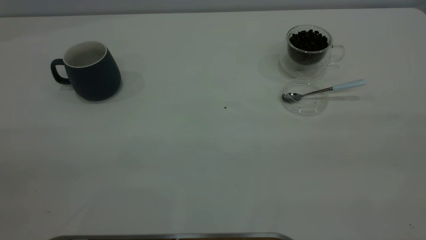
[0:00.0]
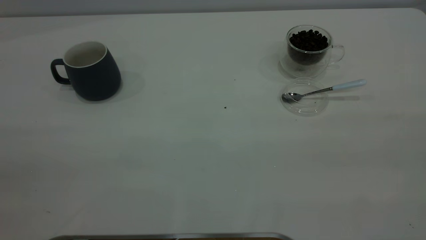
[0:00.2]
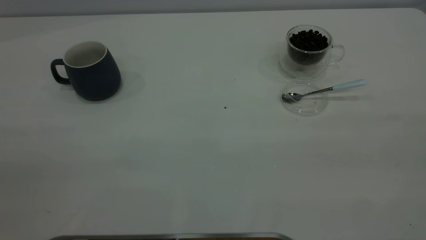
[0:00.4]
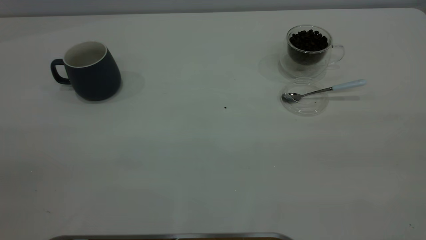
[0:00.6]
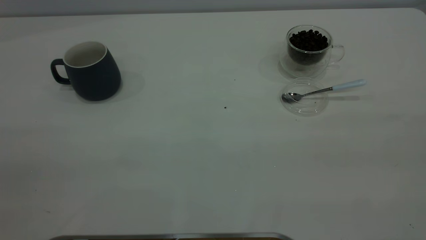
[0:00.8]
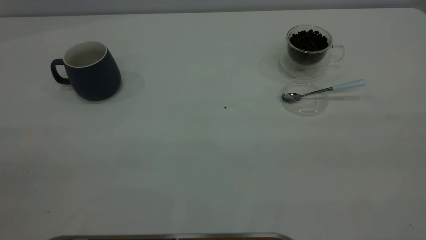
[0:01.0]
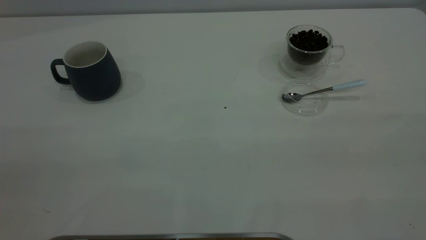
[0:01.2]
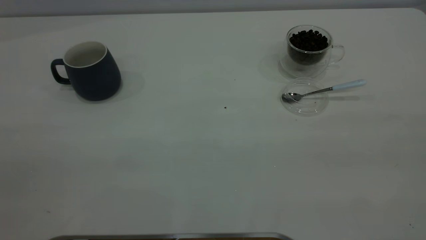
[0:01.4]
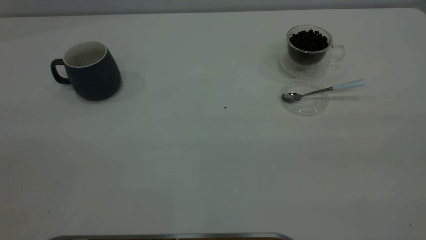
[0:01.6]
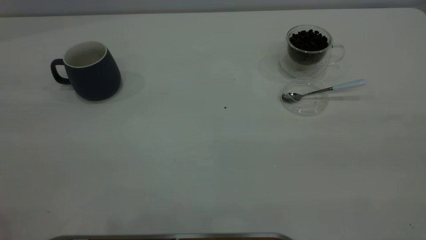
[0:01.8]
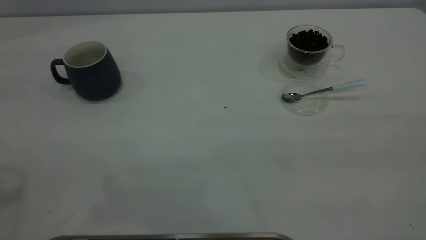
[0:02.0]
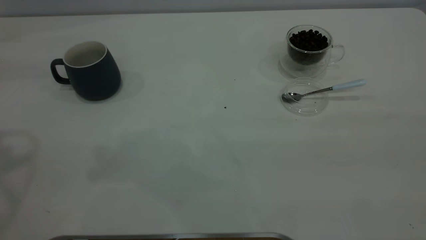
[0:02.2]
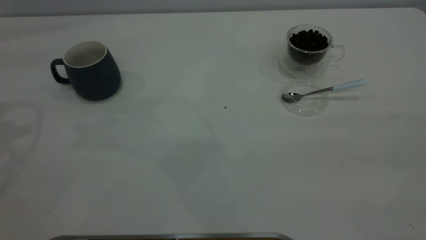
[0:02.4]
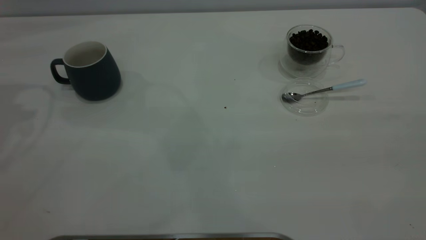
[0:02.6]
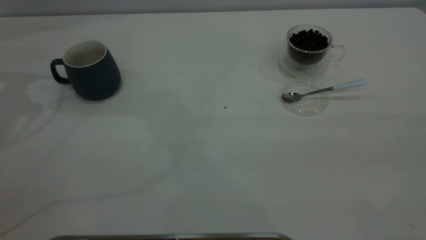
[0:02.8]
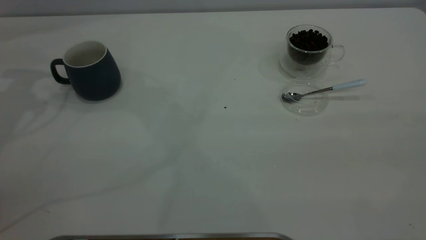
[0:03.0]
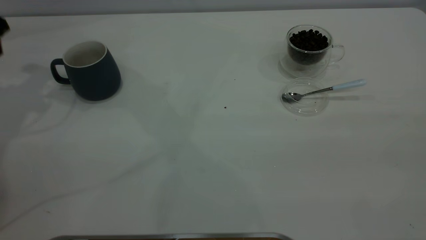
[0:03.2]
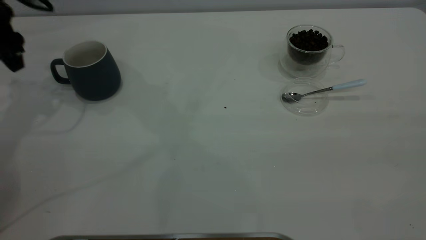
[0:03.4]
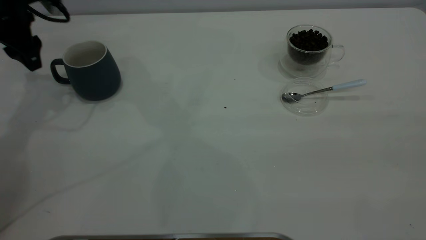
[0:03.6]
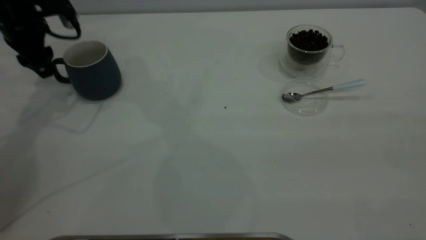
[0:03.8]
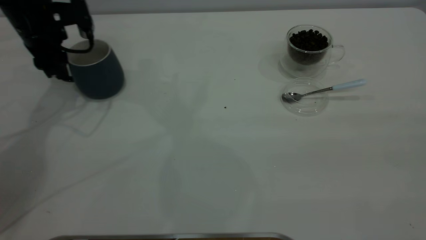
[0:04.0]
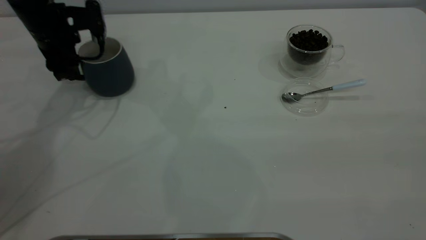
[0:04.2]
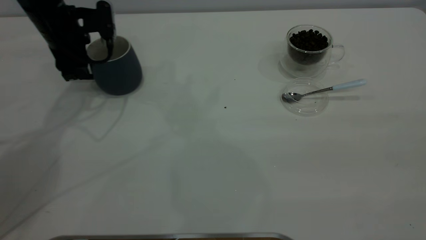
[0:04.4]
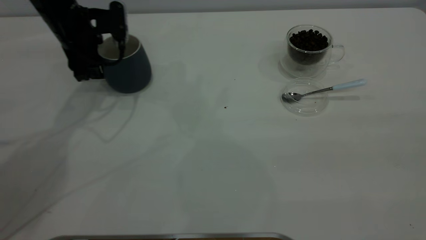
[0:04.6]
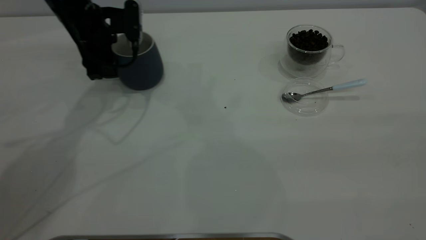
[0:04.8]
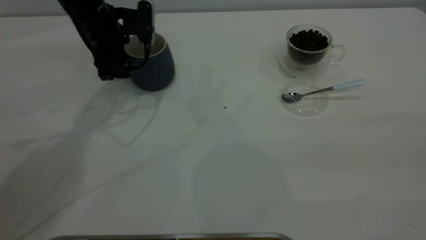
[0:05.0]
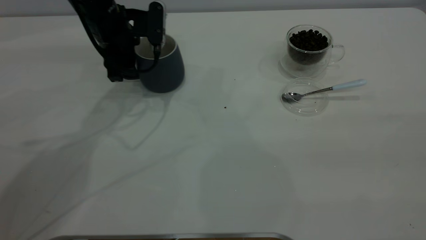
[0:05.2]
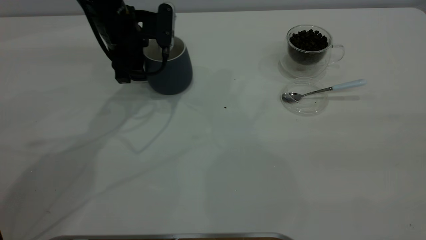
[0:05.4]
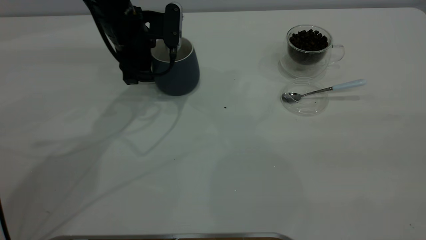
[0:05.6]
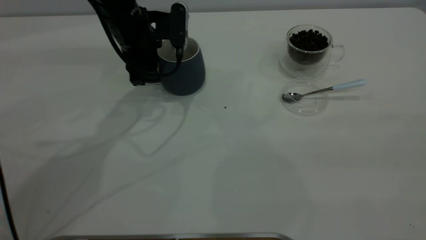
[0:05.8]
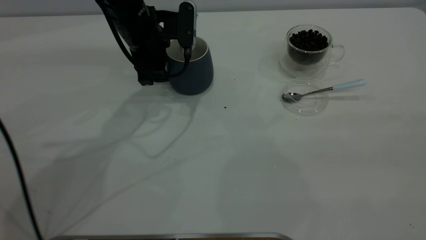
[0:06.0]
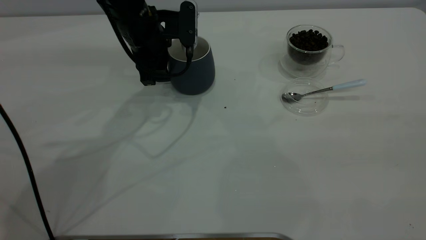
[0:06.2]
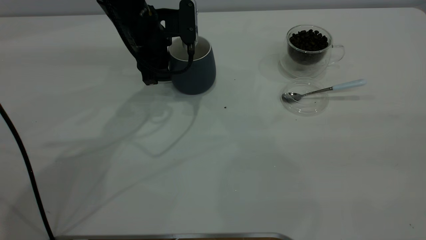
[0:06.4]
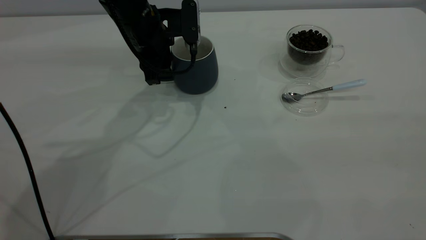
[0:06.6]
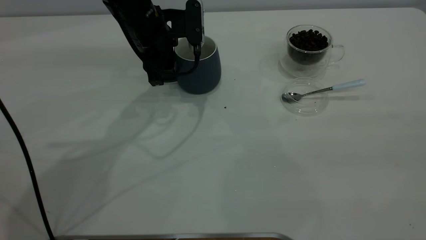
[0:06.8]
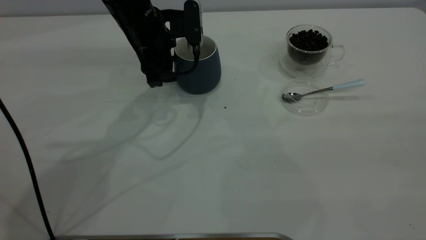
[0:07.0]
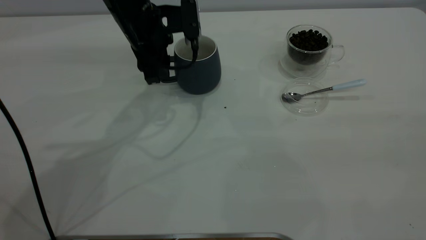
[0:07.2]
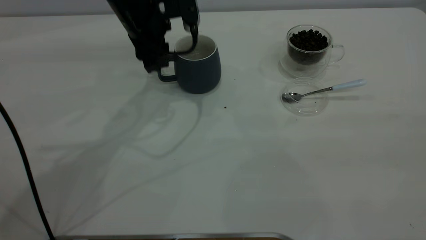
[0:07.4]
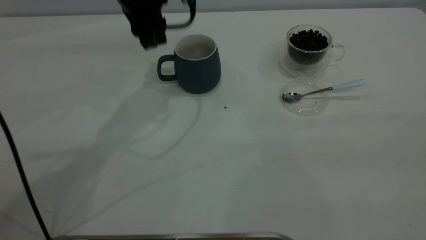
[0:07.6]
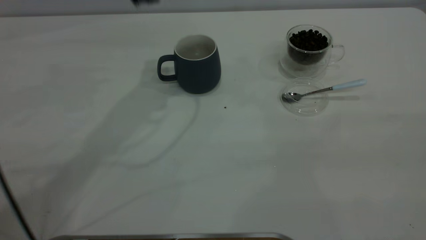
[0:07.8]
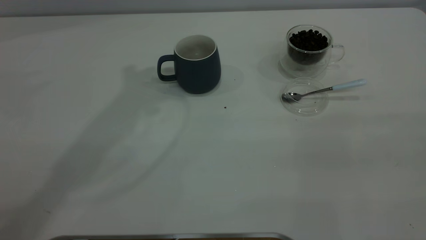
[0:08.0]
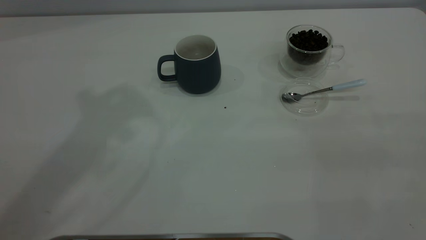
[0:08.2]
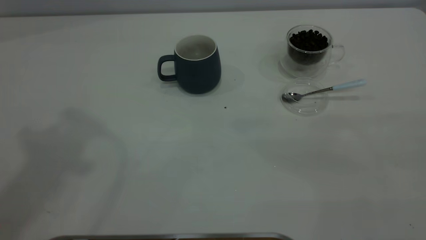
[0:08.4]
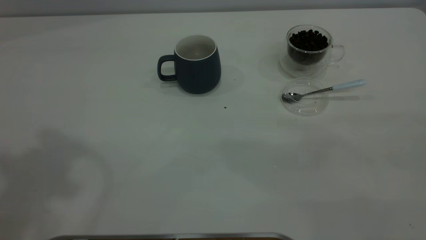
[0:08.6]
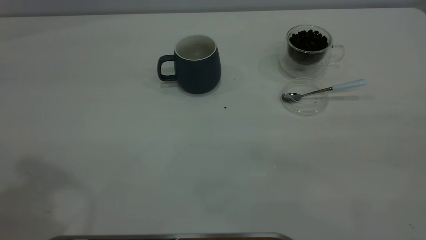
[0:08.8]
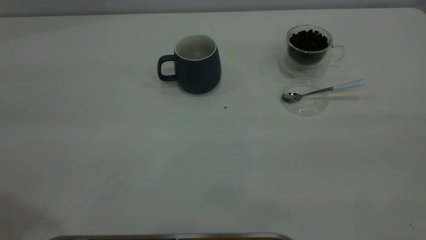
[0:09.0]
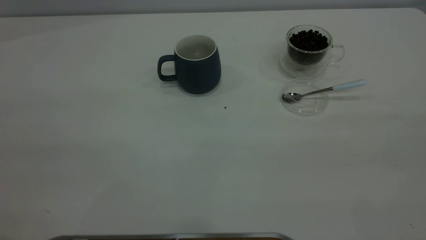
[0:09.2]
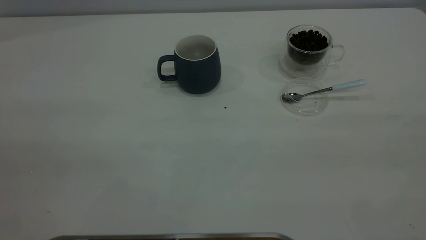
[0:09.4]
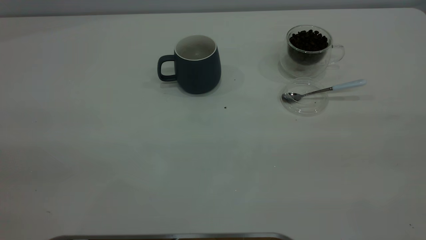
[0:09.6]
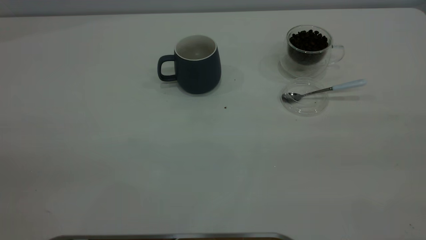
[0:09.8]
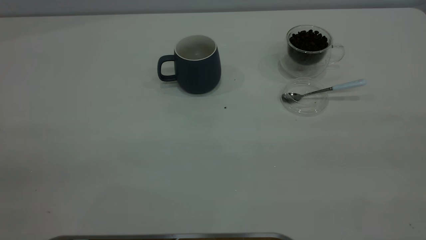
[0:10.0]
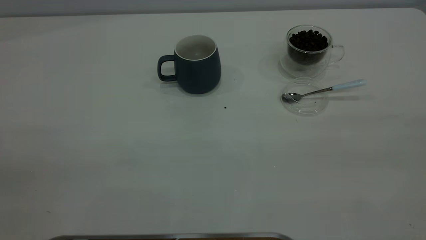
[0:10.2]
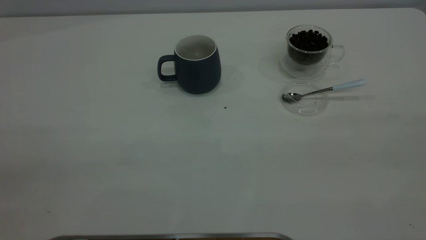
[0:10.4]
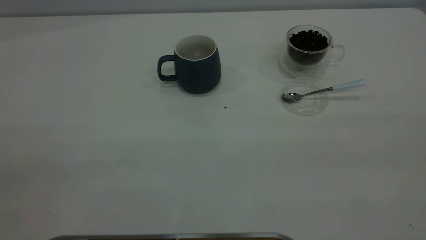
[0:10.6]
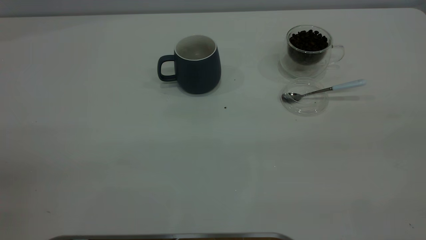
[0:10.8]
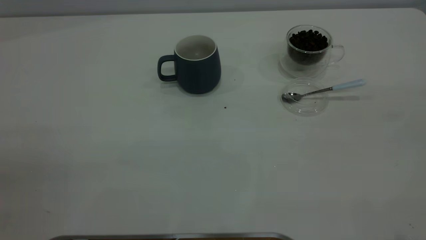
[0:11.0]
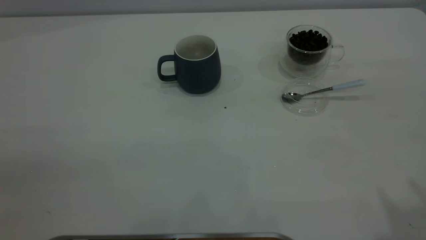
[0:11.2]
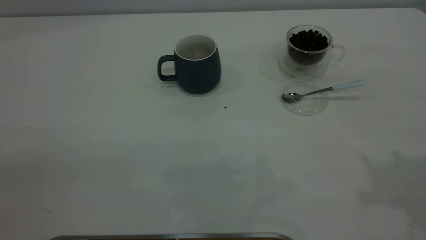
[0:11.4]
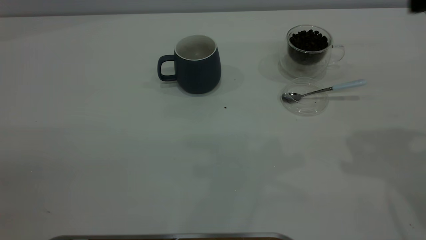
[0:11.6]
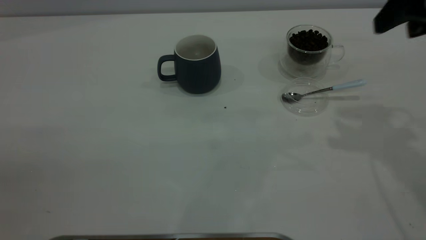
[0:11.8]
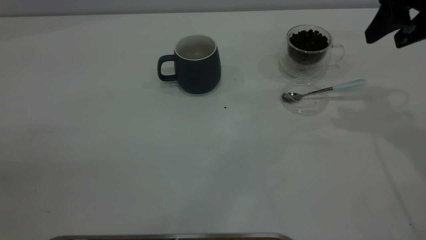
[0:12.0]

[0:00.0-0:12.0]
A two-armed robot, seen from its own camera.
Task of the whole recording: the left gripper place the grey cup in the center of the table, the right gripper take the blue spoon from the cup lid and scoop out the coffee beans from the coffee cup and put them into the grey cup, the right gripper put the spoon back into the cup lid.
Step, 0:00.0 to 0:07.6: Move the cup to the center of view.
0:03.0 to 0:04.4: The left gripper goes roughly 15 cm to the right and downward.
0:04.4 to 0:06.0: The left gripper heads to the right, covering approximately 15 cm.
0:06.0 to 0:07.6: The left gripper heads upward, covering roughly 10 cm.
0:07.6 to 0:09.0: The left gripper heads backward, upward and to the left, covering some 40 cm.
0:10.4 to 0:12.0: The right gripper travels forward by some 35 cm.

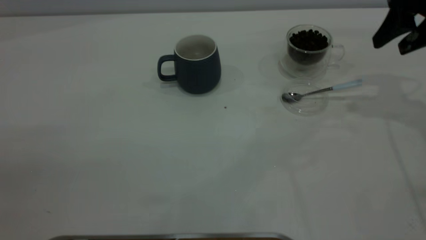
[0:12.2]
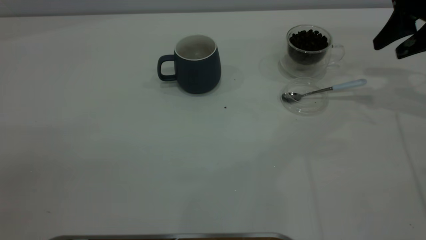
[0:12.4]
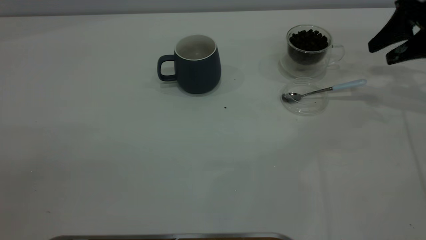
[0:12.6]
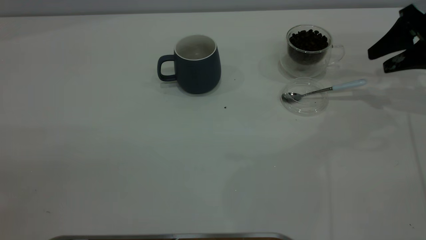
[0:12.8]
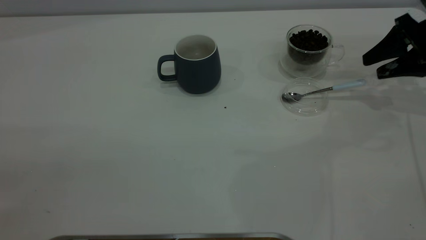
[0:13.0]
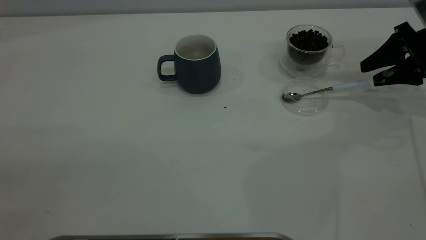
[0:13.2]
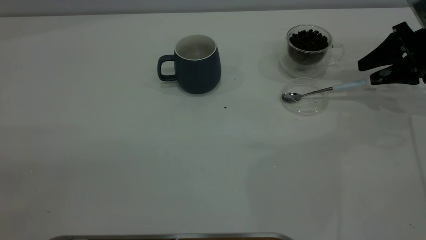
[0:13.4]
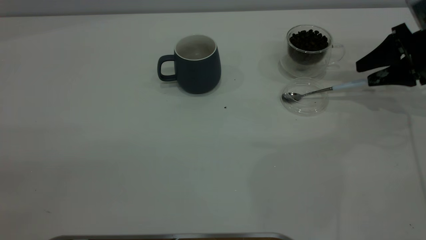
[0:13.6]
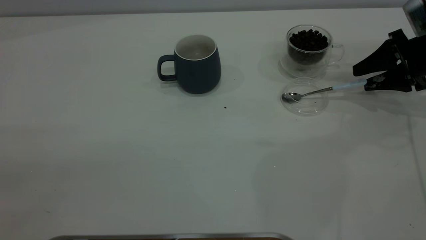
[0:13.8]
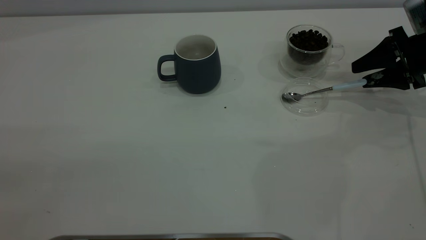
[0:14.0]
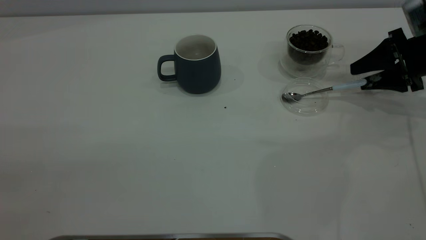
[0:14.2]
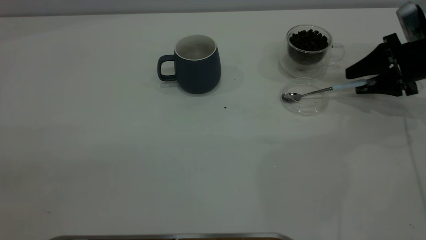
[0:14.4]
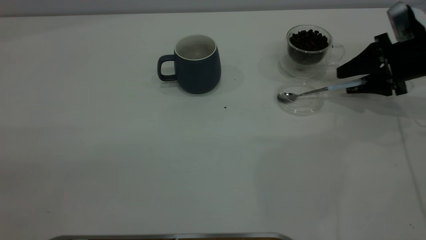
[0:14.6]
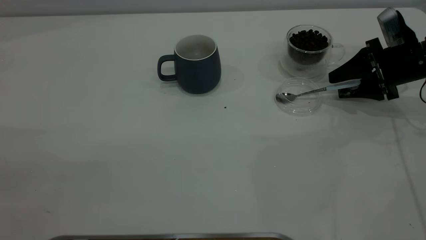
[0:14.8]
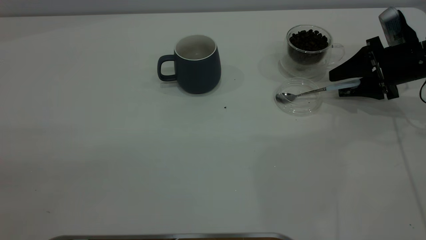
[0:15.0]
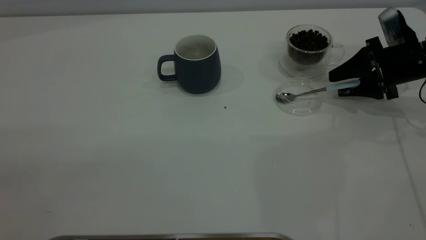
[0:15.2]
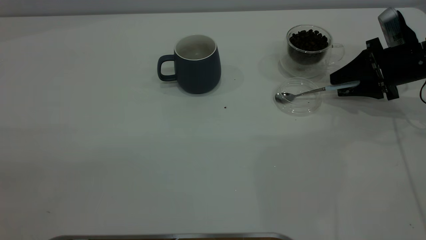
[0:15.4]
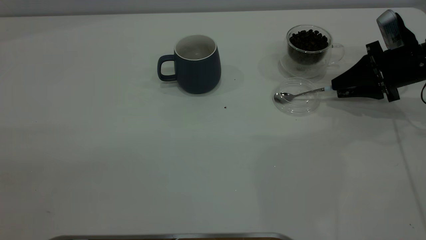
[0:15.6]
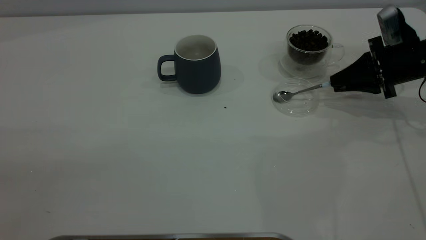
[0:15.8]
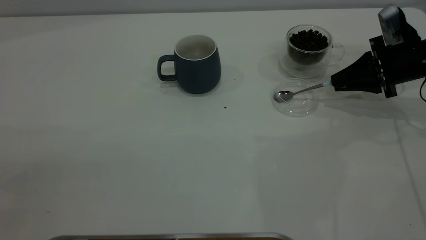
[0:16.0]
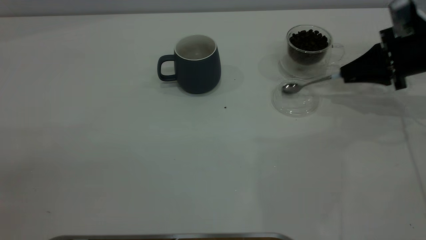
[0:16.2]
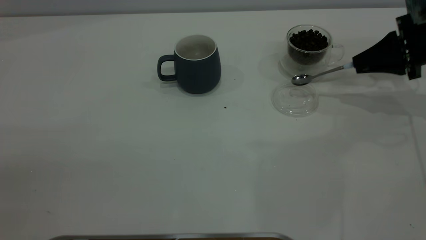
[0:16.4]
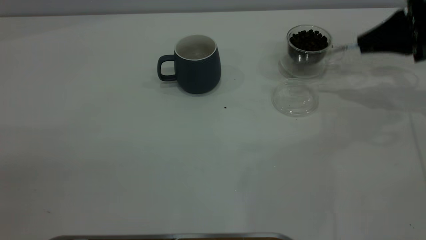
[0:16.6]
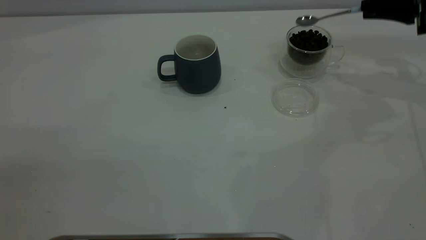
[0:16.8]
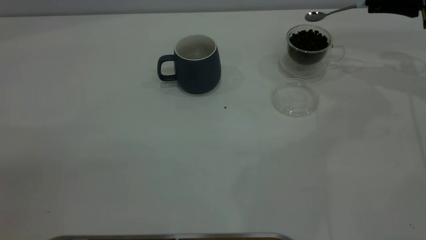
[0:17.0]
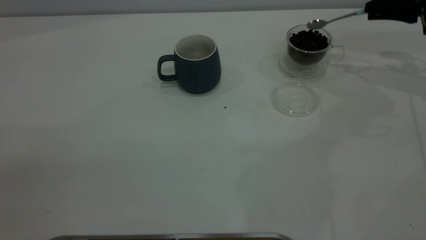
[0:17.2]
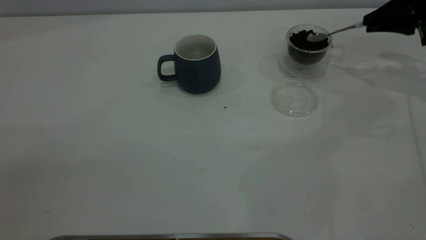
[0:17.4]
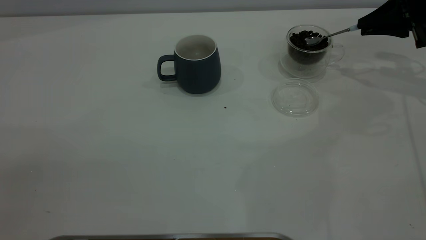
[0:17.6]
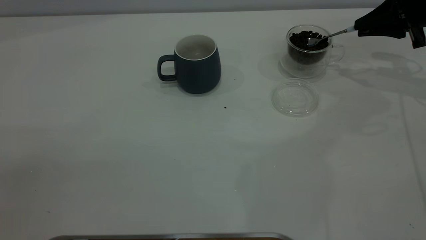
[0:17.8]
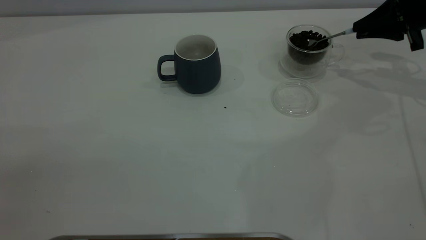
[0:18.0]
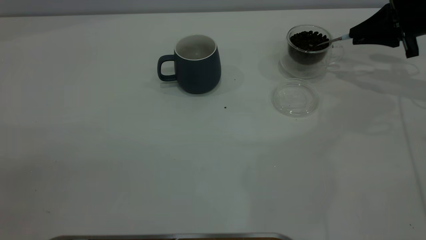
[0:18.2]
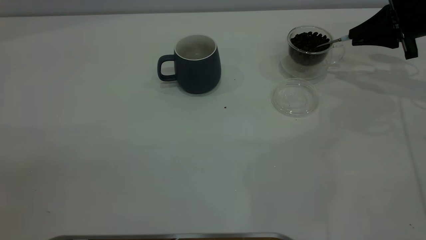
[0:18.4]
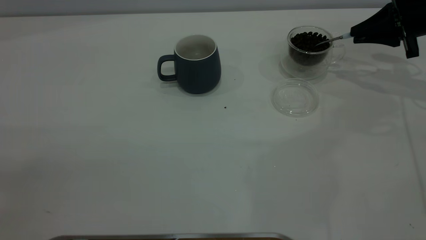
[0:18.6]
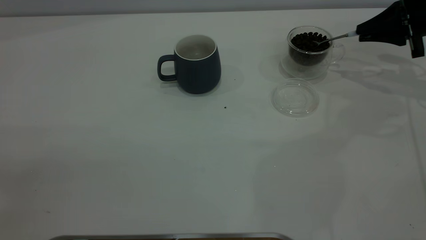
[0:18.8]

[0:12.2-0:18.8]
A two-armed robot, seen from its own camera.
Task of the whole recording: the left gripper place the grey cup in the center of the table, the right gripper take the blue spoon from the cup lid and scoop out the coffee beans from the coffee cup and put them into the grey cup, the right gripper put the spoon back into the cup lid.
Step, 0:12.2 to 0:16.4: Pick up the spoon.
0:12.2 to 0:13.8: The right gripper heads downward, covering roughly 10 cm.
0:13.8 to 0:15.4: The grippers move only a little.
0:15.4 to 0:17.2: The right gripper travels upward by roughly 10 cm, and closes up.
0:17.2 to 0:18.8: There are only small adjustments of the grippers.
